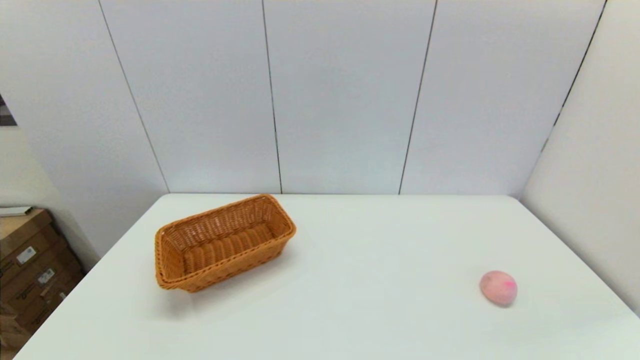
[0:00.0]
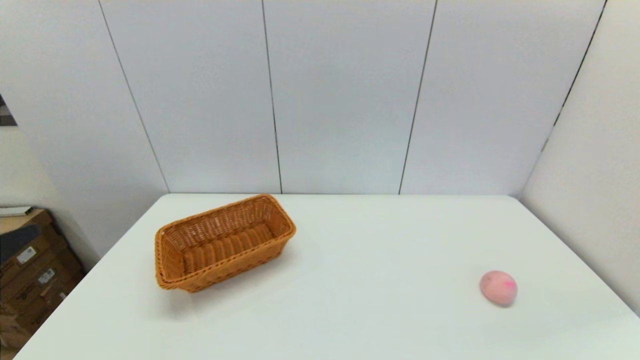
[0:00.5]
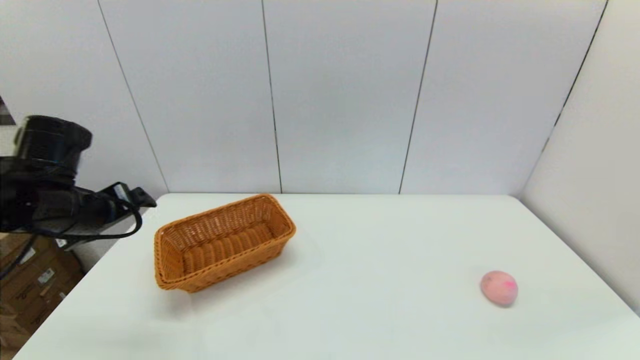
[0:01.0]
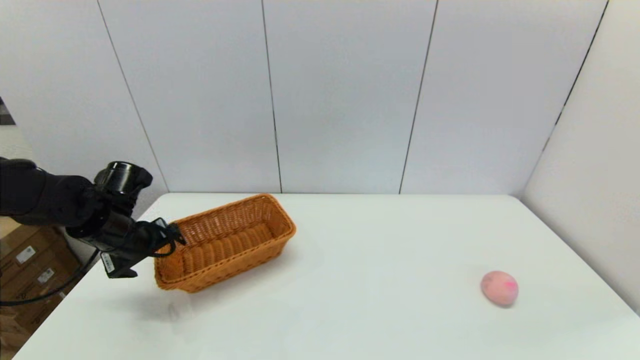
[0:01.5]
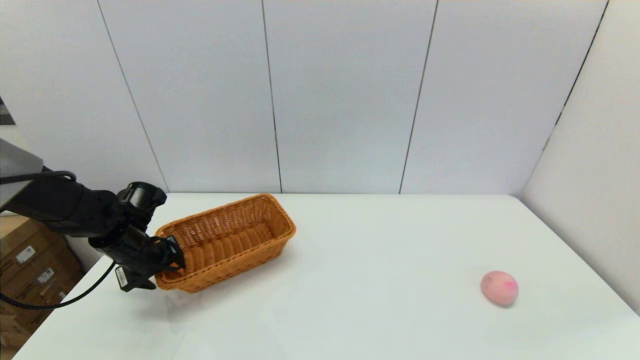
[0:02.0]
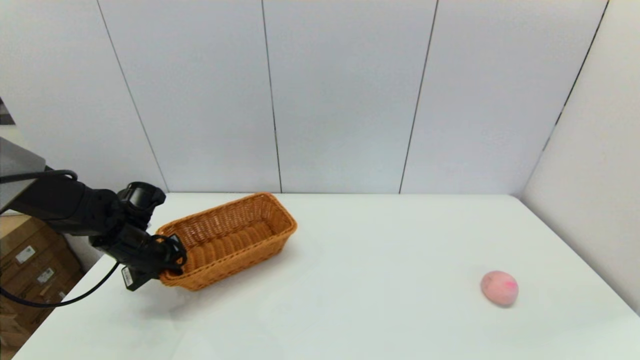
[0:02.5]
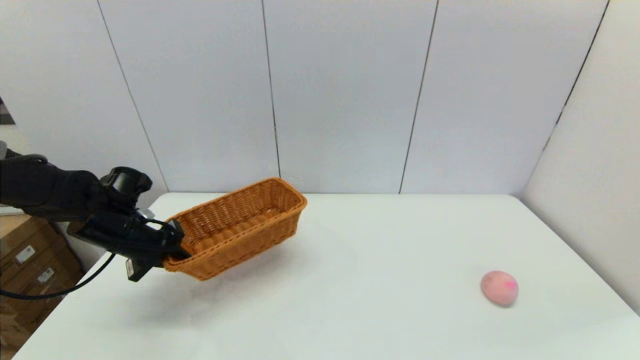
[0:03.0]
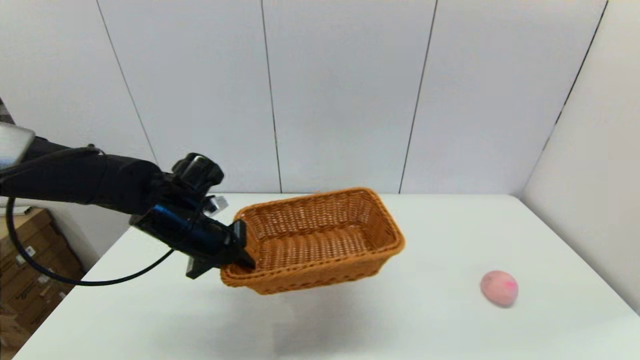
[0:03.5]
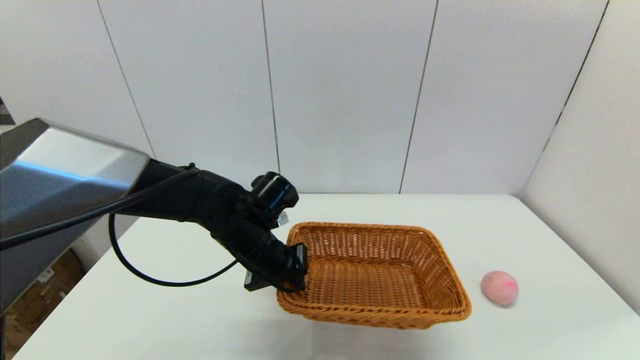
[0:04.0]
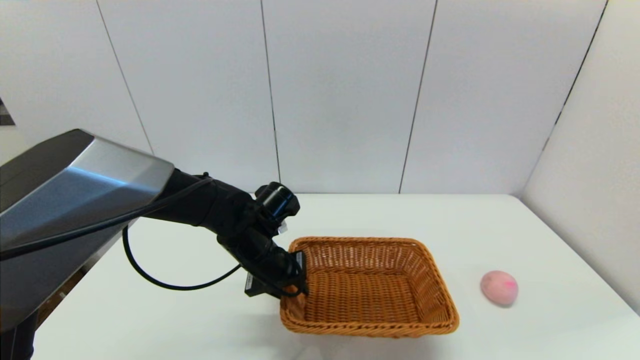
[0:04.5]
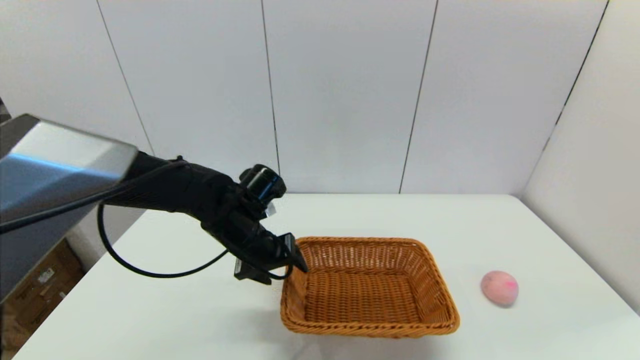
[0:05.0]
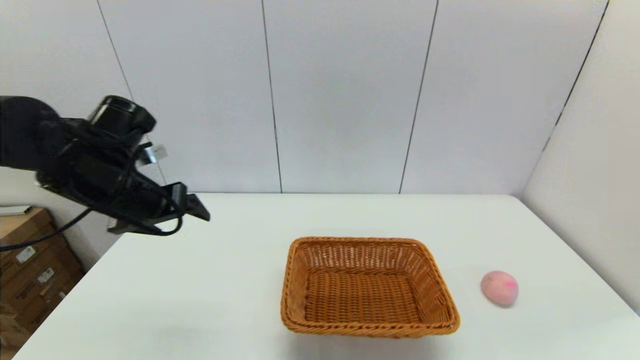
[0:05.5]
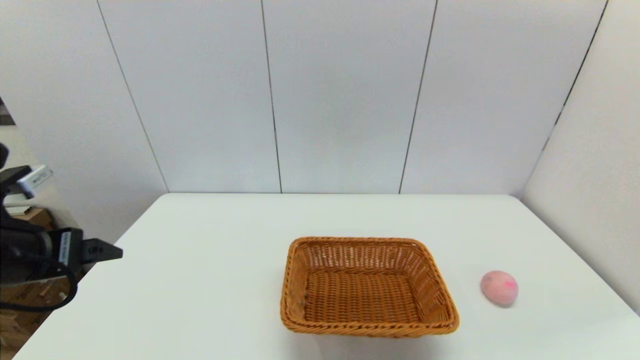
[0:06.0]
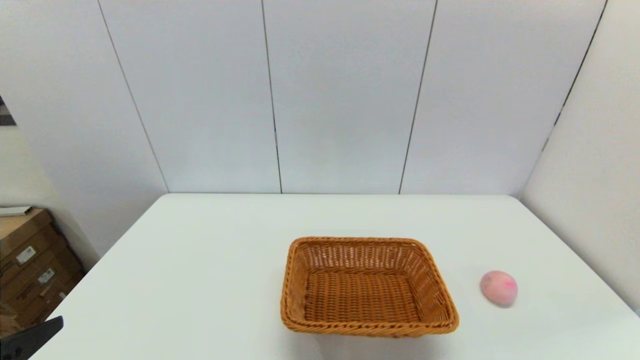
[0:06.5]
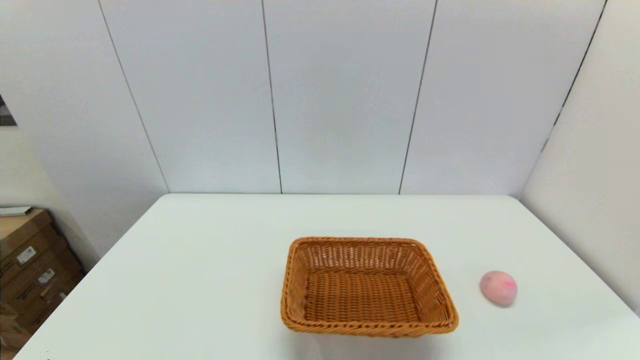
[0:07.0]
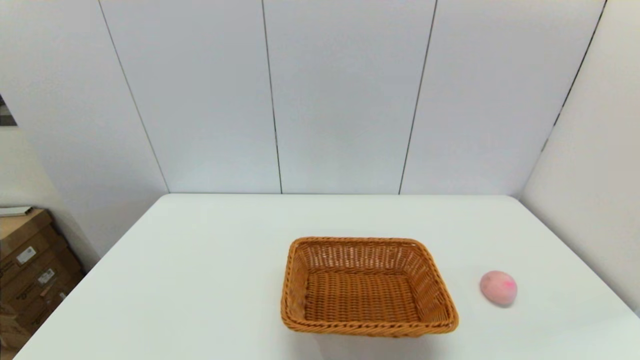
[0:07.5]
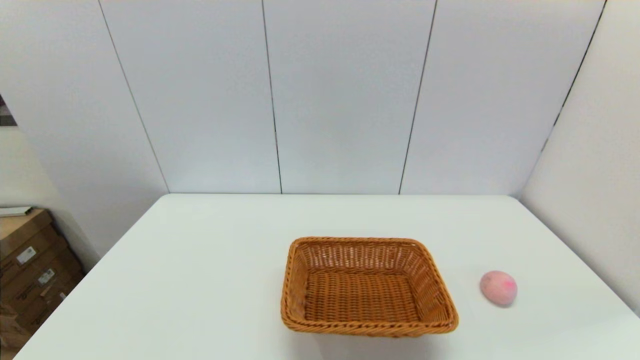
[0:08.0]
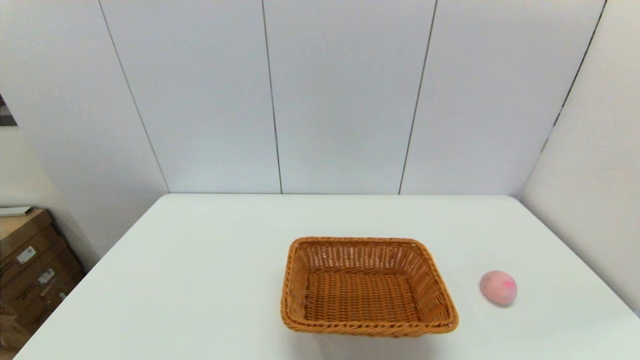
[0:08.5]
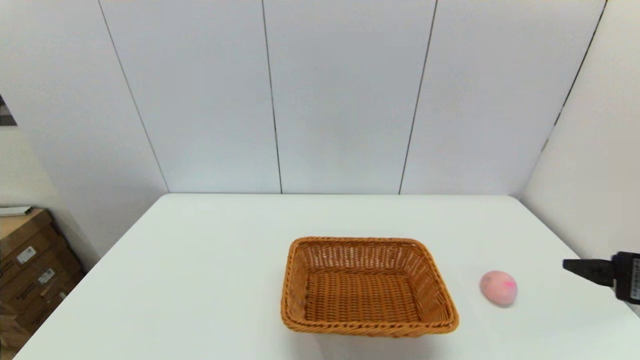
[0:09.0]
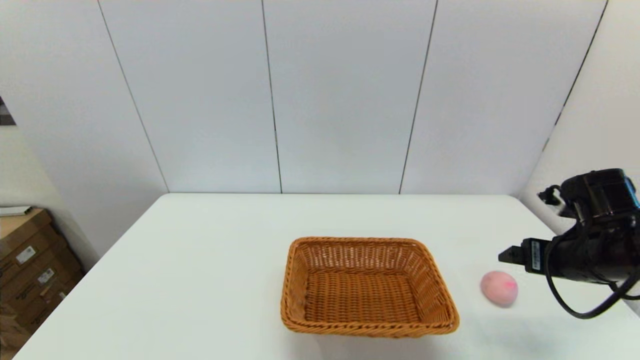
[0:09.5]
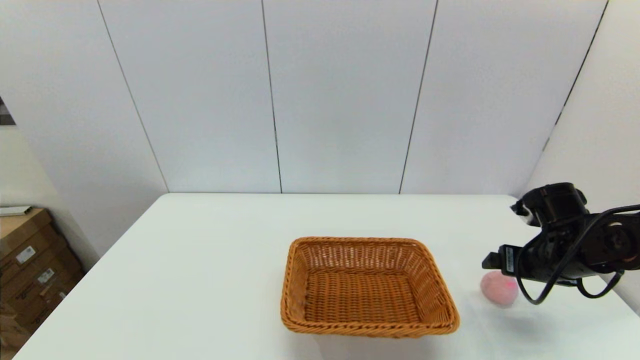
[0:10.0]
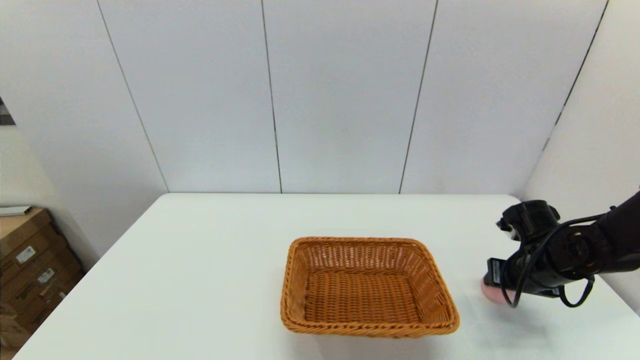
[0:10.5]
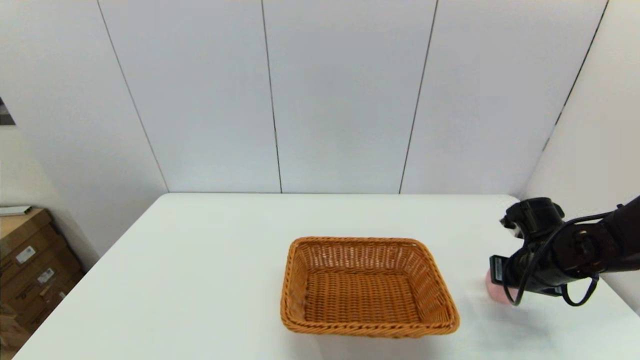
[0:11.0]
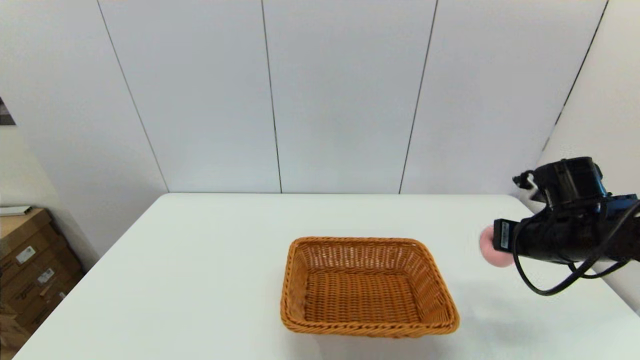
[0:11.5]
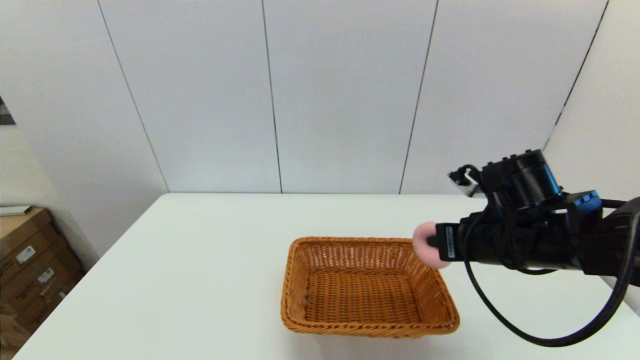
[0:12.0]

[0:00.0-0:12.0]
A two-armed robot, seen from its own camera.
Step, 0:00.0 to 0:02.5: Grasp the light basket with the left gripper.
Step, 0:03.0 to 0:04.5: Place the light basket on the middle of the table with the left gripper.
Step, 0:05.5 to 0:10.5: Grasp the peach with the right gripper.
0:00.0 to 0:02.0: The left gripper shifts some 35 cm forward, and closes.
0:02.0 to 0:04.0: The left gripper moves to the right, about 20 cm, and closes.
0:04.0 to 0:06.0: The left gripper heads to the left, backward and upward, covering roughly 30 cm, and opens.
0:06.0 to 0:08.0: The left gripper moves backward and downward, approximately 25 cm.
0:08.0 to 0:10.0: The right gripper is displaced forward by about 30 cm.
0:10.0 to 0:12.0: The right gripper travels to the left and upward by roughly 15 cm, and closes up.

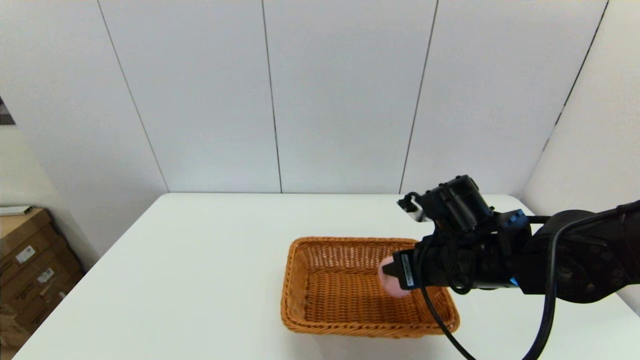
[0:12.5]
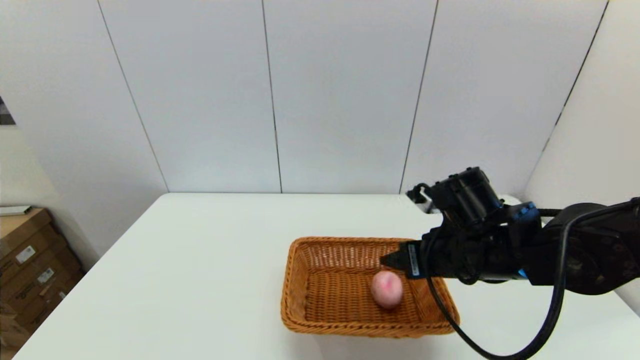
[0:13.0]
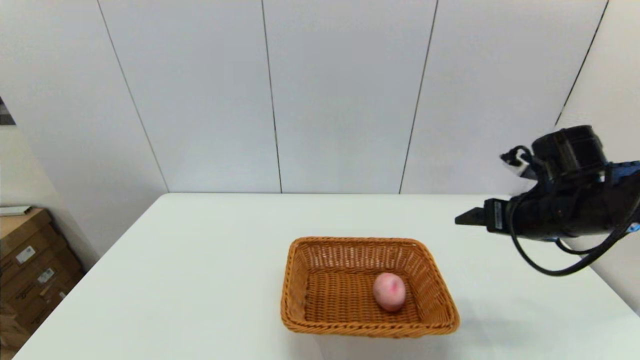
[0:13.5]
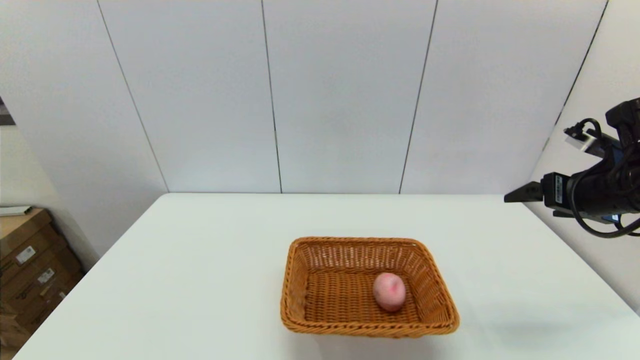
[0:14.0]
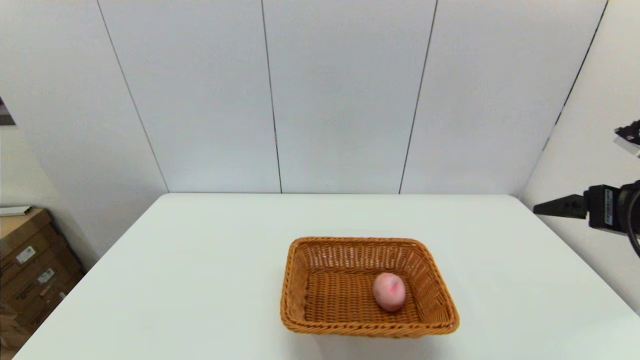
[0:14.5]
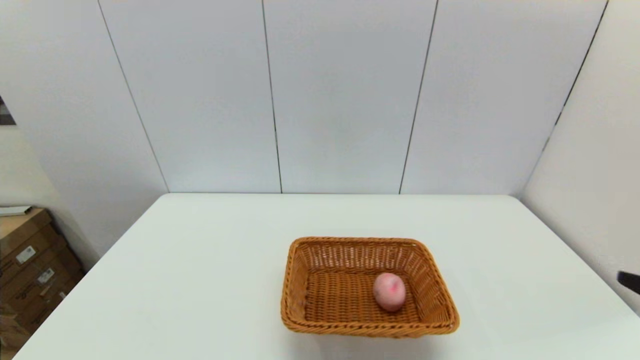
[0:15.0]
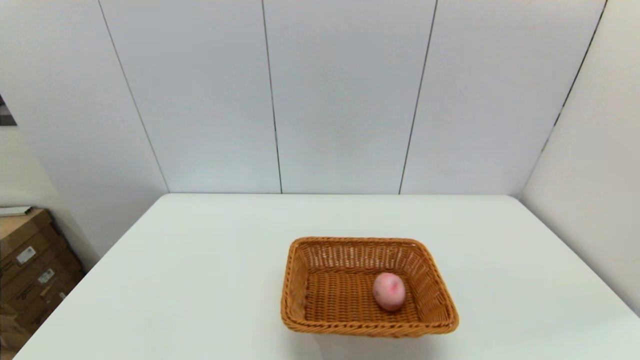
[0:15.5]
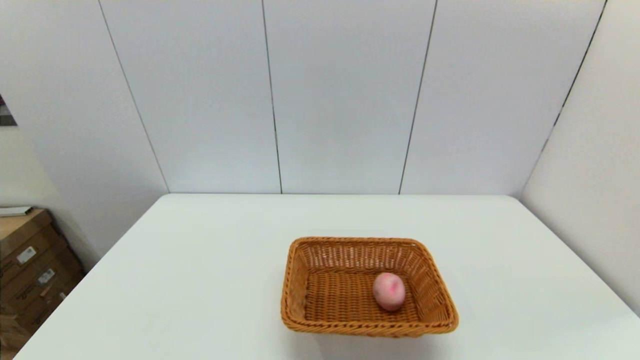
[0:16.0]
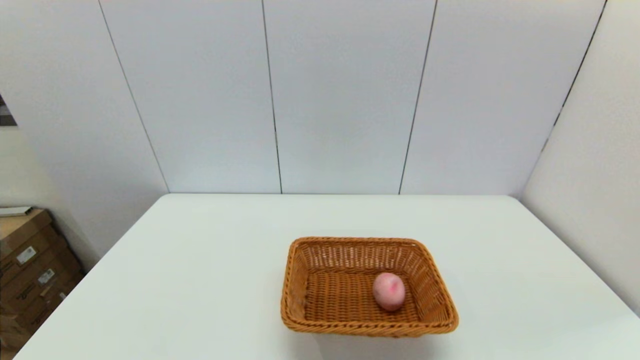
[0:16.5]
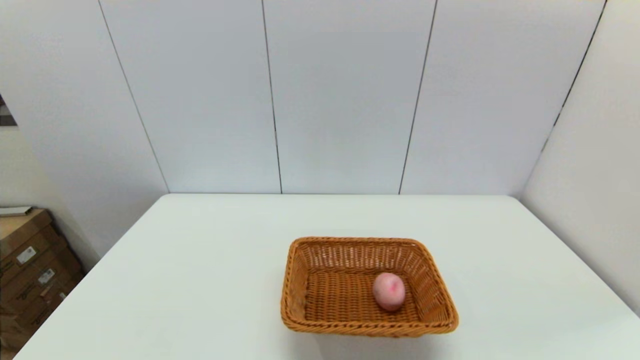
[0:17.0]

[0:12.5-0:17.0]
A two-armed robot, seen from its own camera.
0:12.5 to 0:14.5: The right gripper travels to the right and upward by roughly 20 cm, and opens up.
0:14.5 to 0:17.0: The right gripper travels backward and downward by approximately 30 cm.

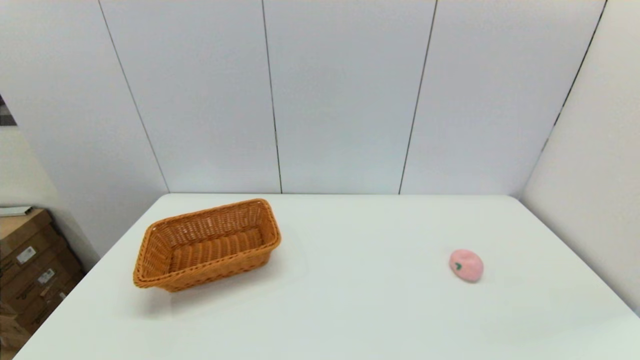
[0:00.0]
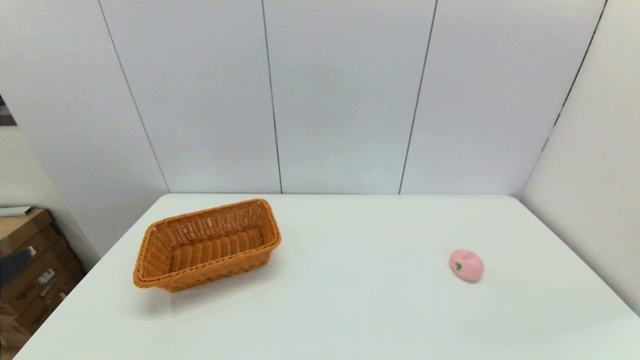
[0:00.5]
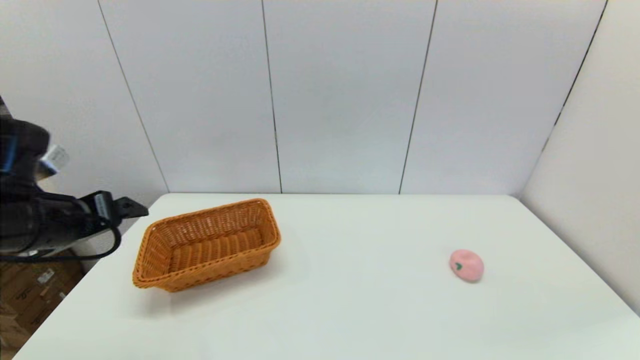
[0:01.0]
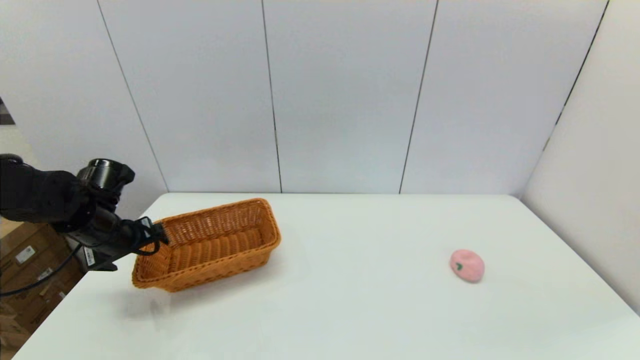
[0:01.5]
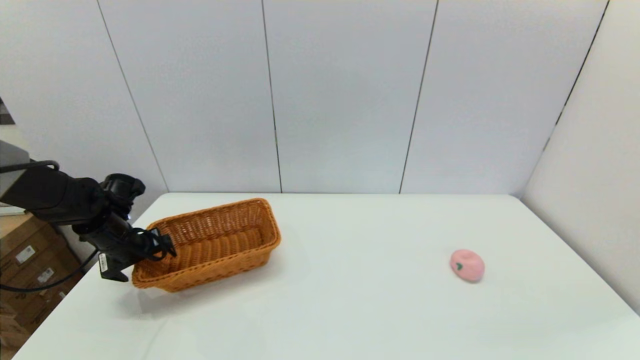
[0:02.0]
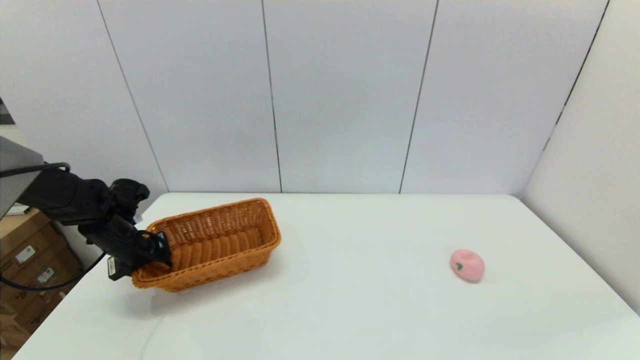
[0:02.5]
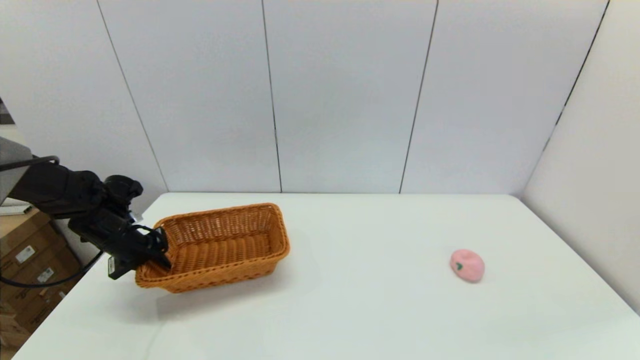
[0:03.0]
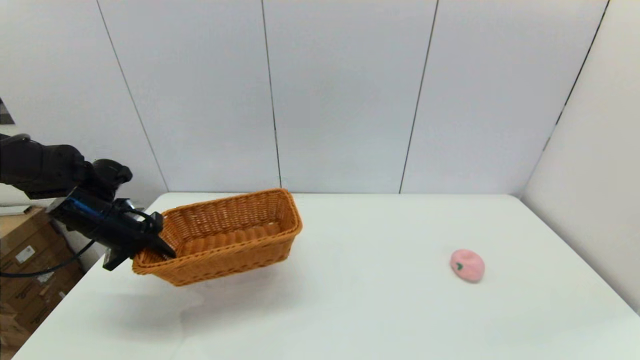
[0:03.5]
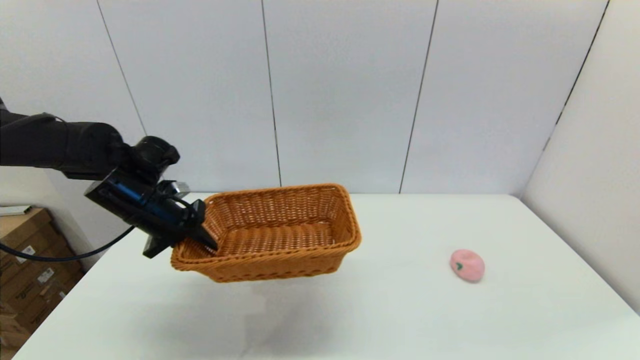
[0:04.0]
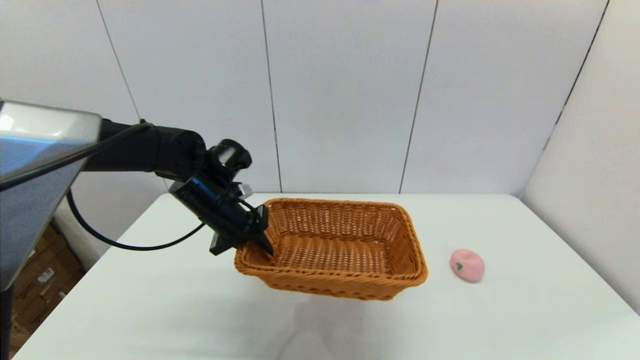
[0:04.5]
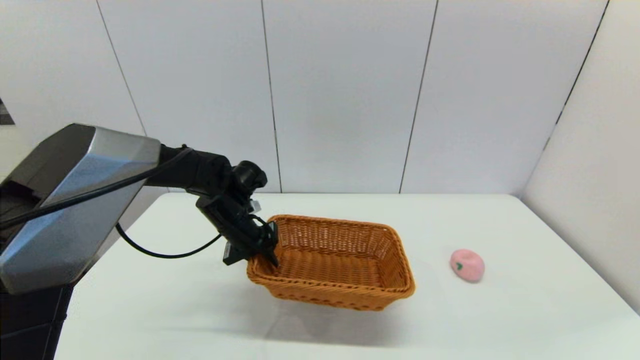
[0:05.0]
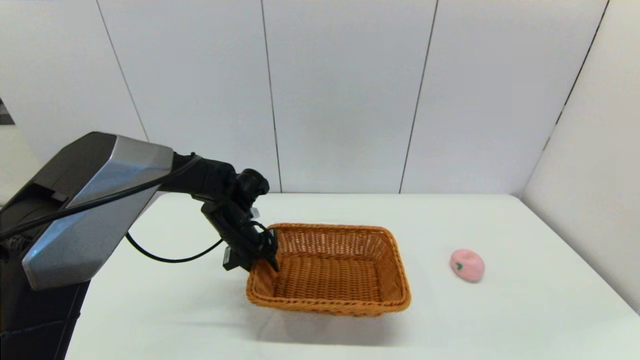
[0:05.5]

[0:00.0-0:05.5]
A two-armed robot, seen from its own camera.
Step, 0:00.0 to 0:03.0: Grasp the light basket with the left gripper.
0:00.0 to 0:02.0: The left gripper moves forward, approximately 40 cm.
0:02.0 to 0:03.5: The left gripper shifts by about 5 cm, and closes.
0:03.5 to 0:05.5: The left gripper travels to the right by some 20 cm.
